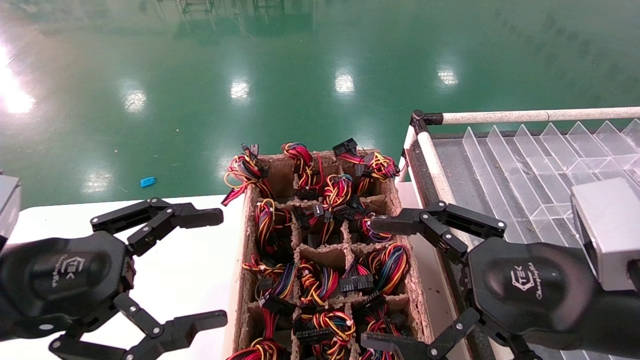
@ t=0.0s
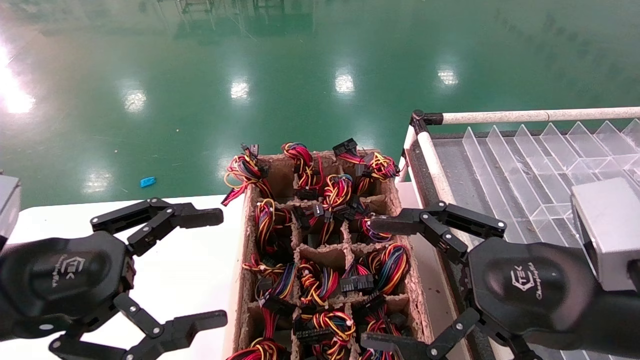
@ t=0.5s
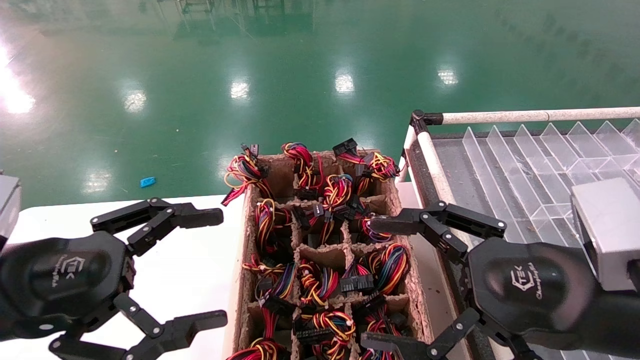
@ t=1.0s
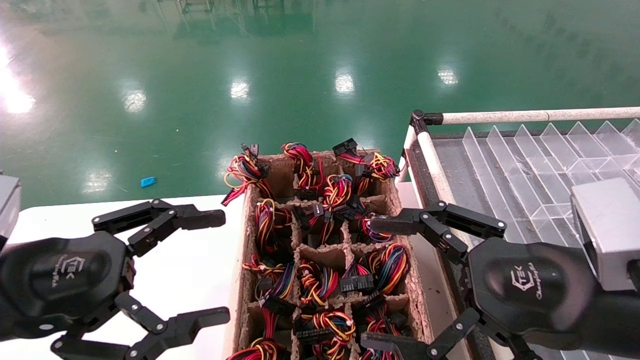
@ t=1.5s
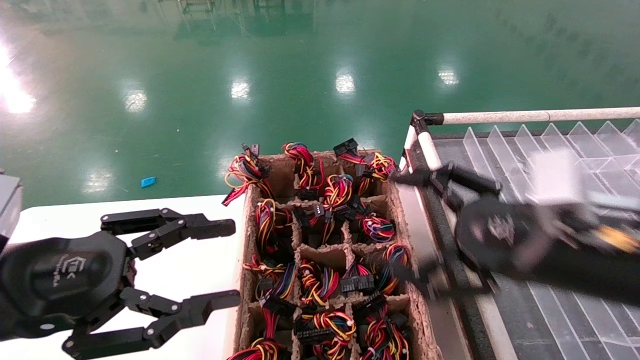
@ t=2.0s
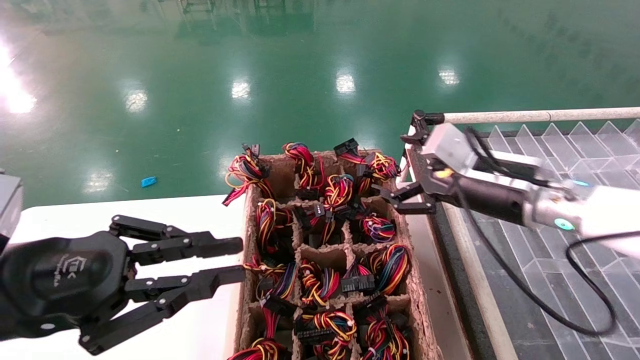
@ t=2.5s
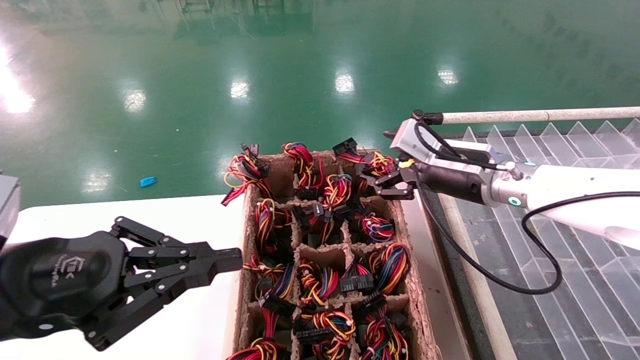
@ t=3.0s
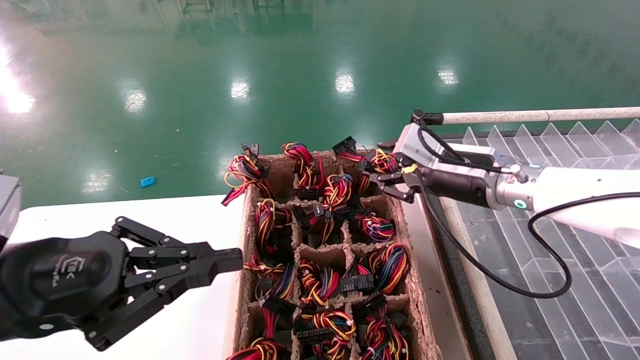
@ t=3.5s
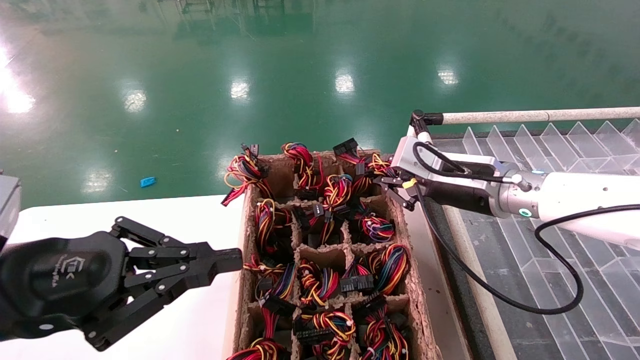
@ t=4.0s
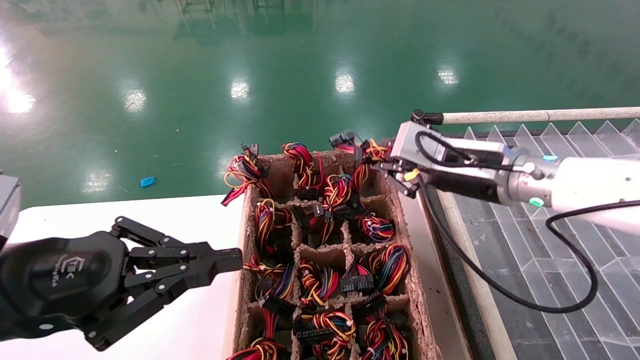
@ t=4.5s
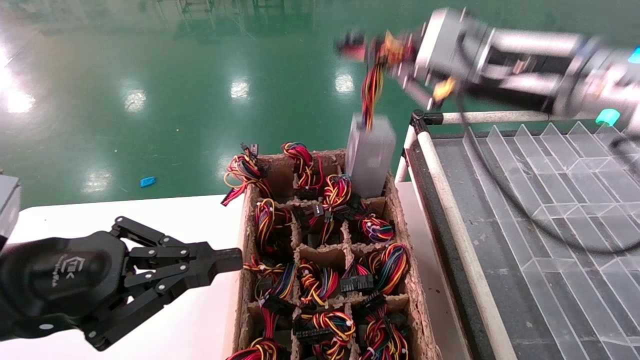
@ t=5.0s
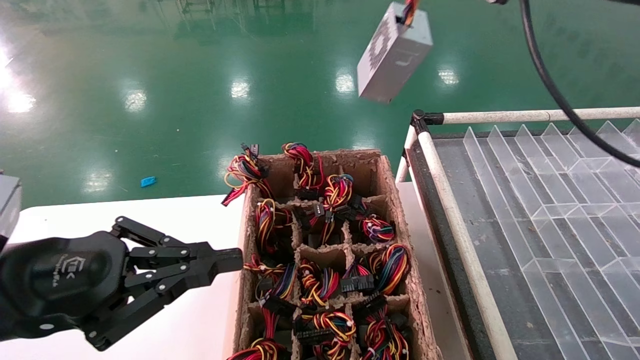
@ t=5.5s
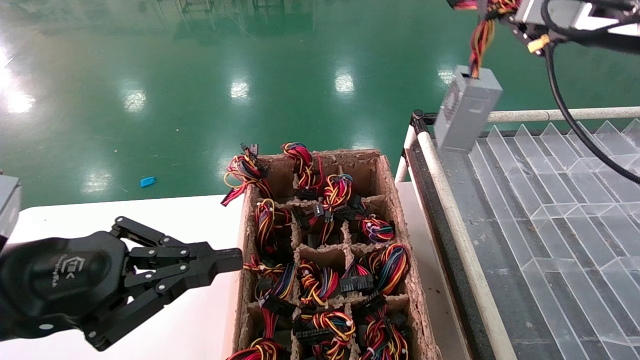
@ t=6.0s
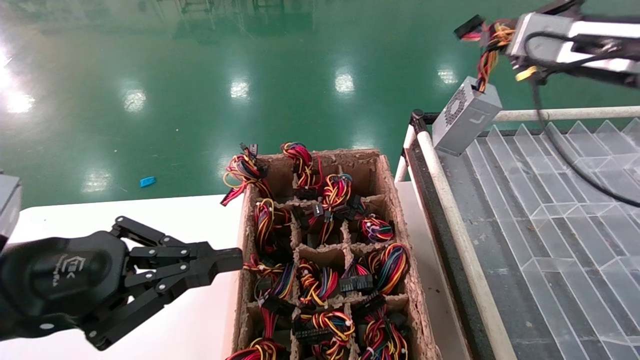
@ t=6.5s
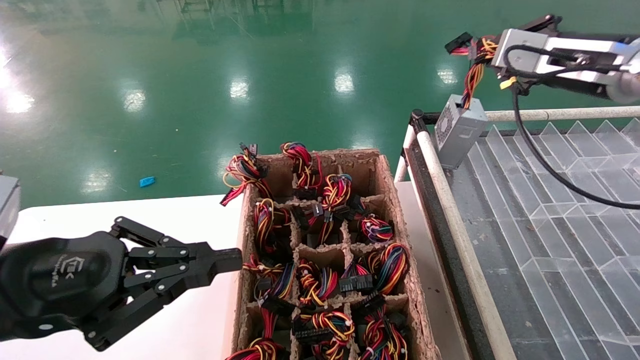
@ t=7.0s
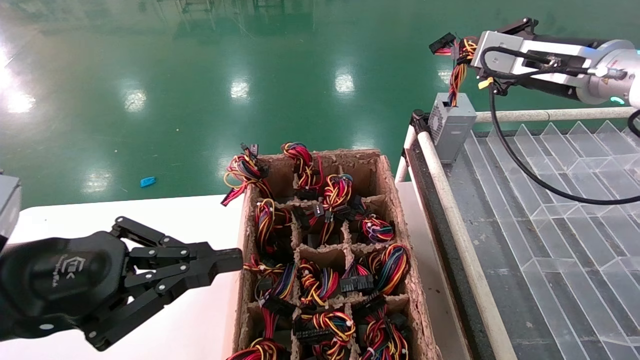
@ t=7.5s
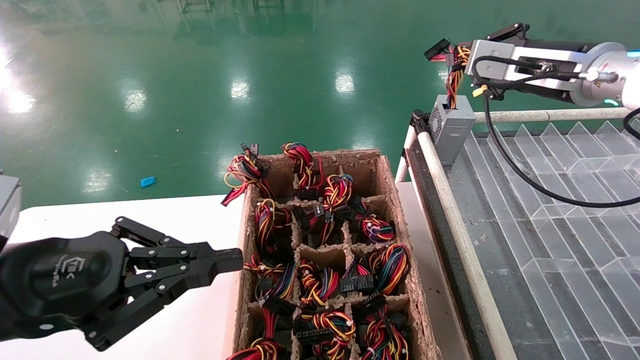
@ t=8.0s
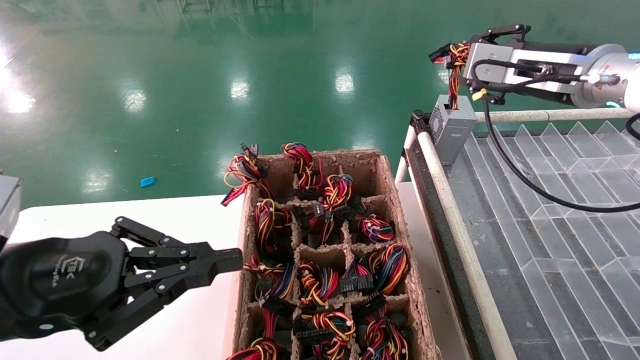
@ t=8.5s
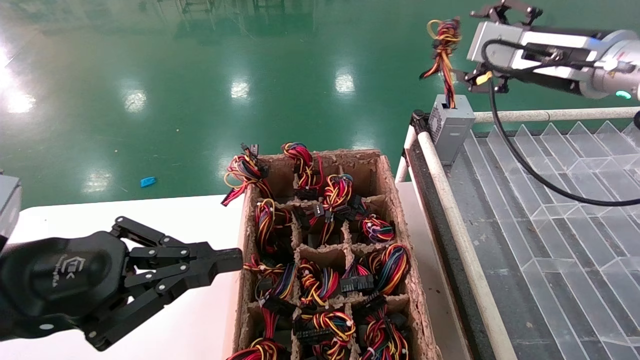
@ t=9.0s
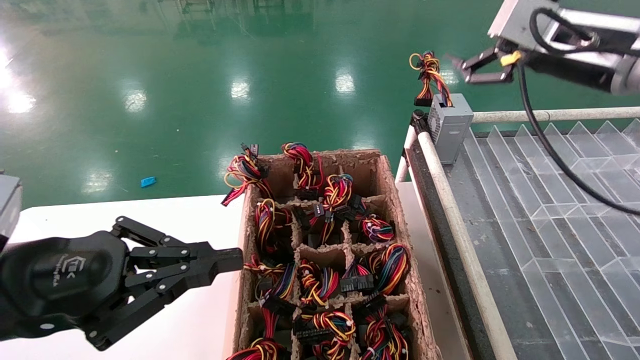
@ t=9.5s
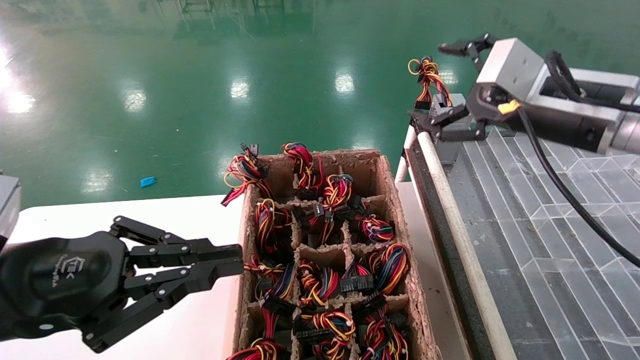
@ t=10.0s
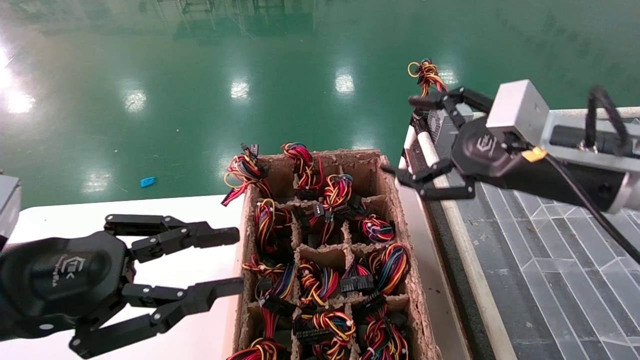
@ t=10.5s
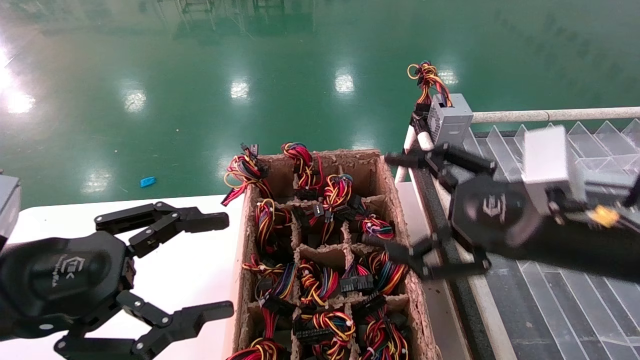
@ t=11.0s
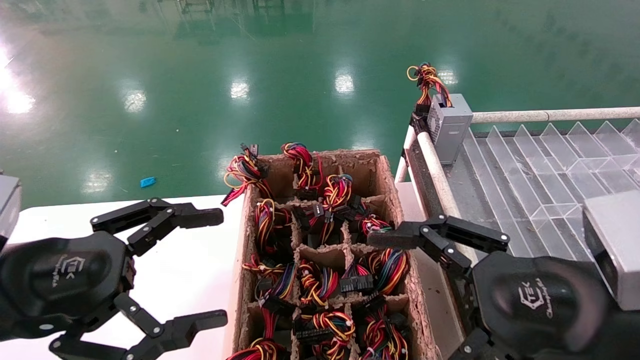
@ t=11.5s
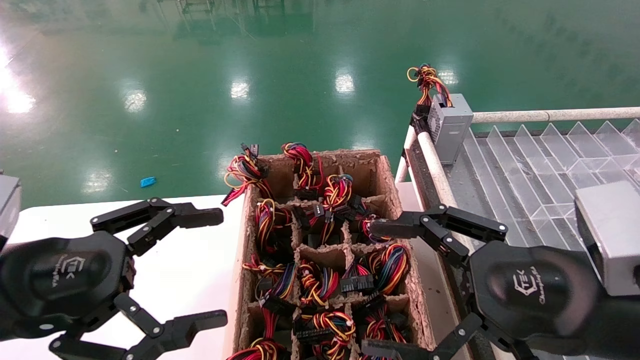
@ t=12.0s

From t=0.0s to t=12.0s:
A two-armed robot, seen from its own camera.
Step, from t=2.5s to t=4.0s: Grab the main unit power supply from the containment box.
Step, from t=4.5s to t=9.0s: Place the main unit power supply in the designated area.
From t=0.0s to t=2.0s: The right gripper goes about 5 cm forward.
From t=2.0s to t=4.0s: The left gripper closes its fingers, while the right gripper shifts some 15 cm forward, and closes.
From t=4.0s to t=6.0s: The right gripper is displaced upward and to the right by some 20 cm.
From t=6.0s to t=8.0s: The right gripper travels forward by approximately 10 cm.
From t=8.0s to t=10.0s: The right gripper travels backward by some 5 cm, and opens up.
From t=10.0s to t=12.0s: The left gripper opens up. The right gripper goes roughly 20 cm backward and downward.

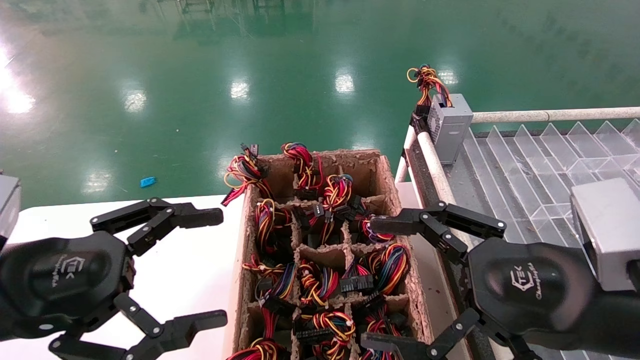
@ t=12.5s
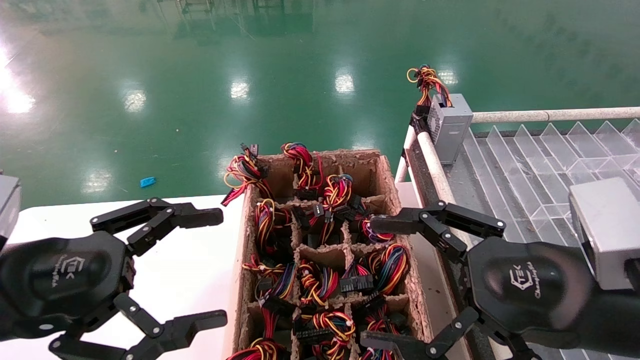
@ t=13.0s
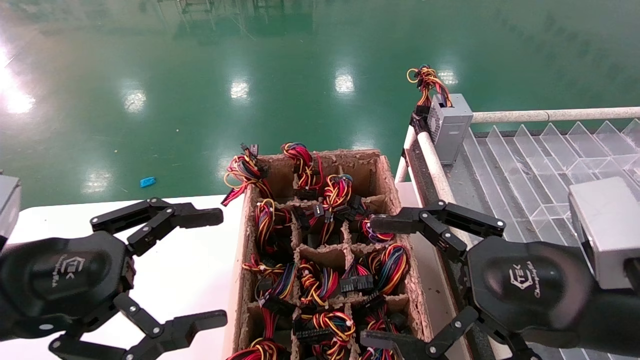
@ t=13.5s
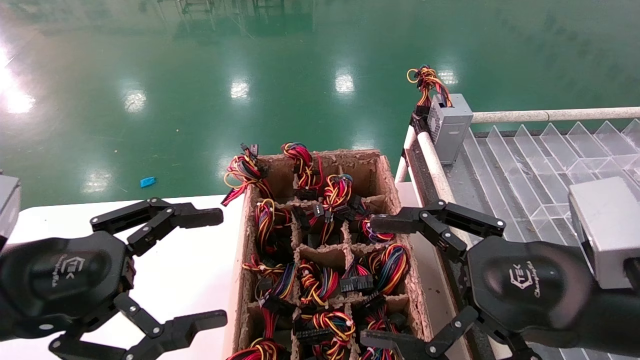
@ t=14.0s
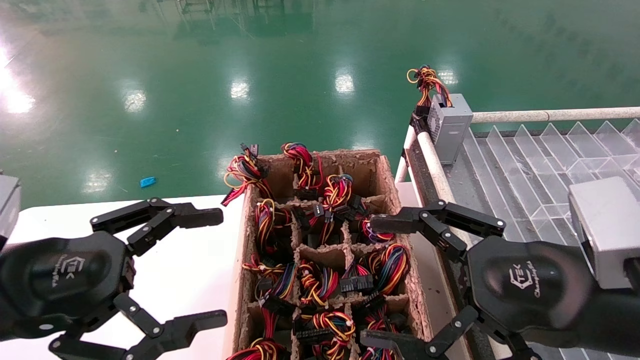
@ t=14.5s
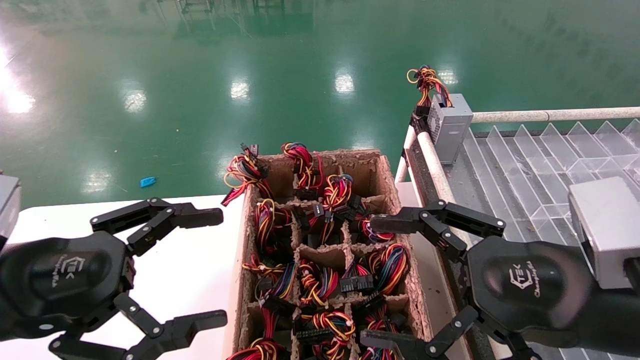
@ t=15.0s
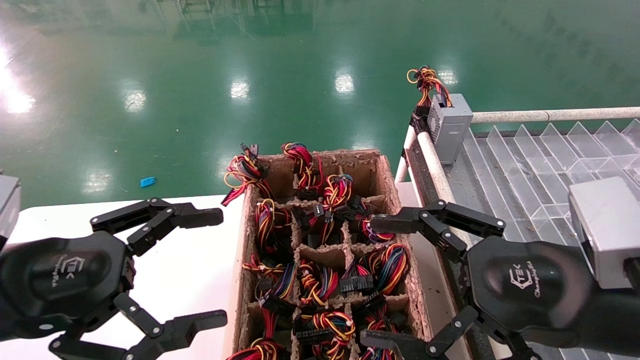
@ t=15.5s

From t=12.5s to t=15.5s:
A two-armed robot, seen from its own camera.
From t=12.5s to t=15.5s: Both grippers stay put.

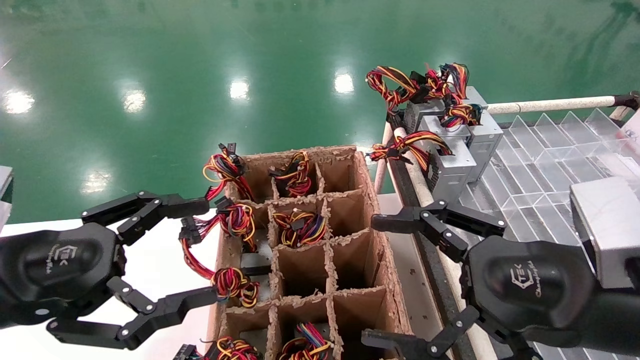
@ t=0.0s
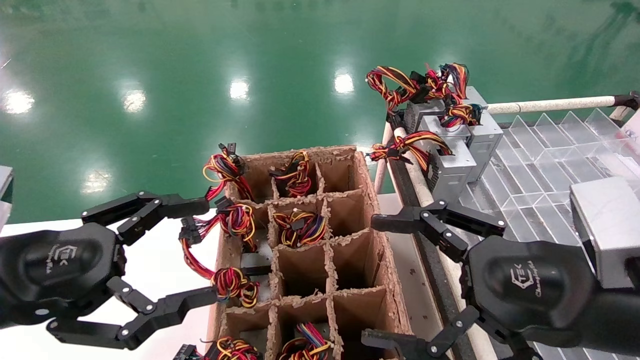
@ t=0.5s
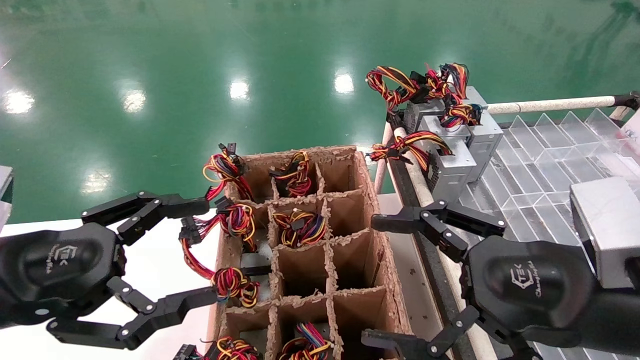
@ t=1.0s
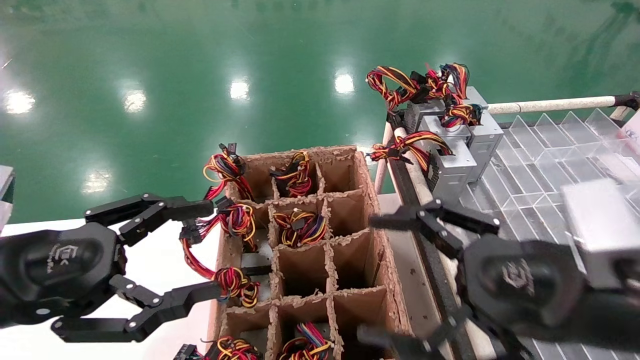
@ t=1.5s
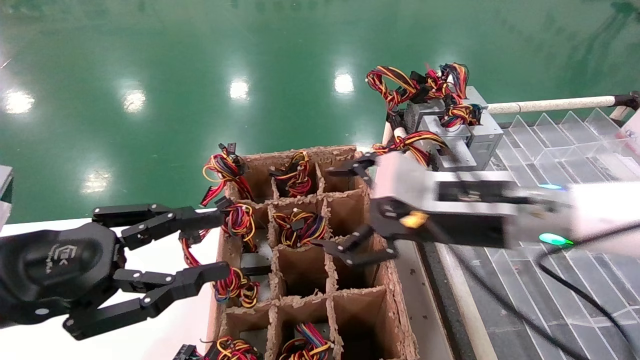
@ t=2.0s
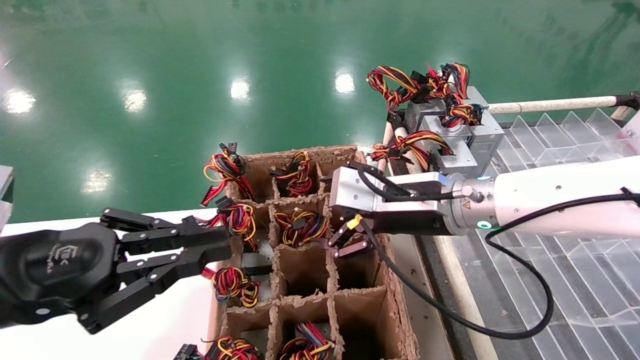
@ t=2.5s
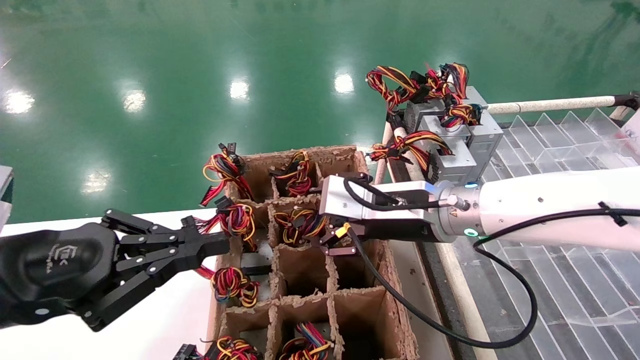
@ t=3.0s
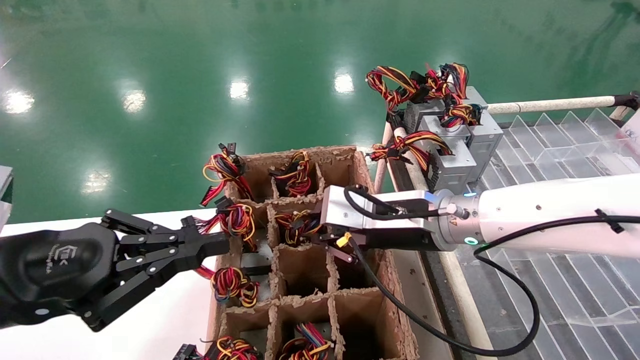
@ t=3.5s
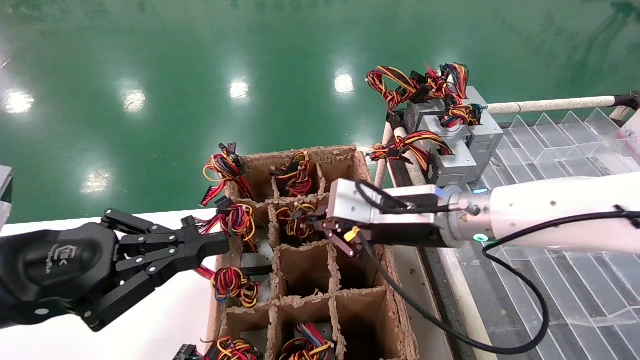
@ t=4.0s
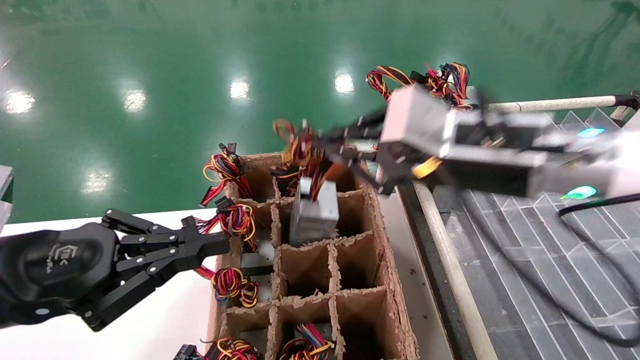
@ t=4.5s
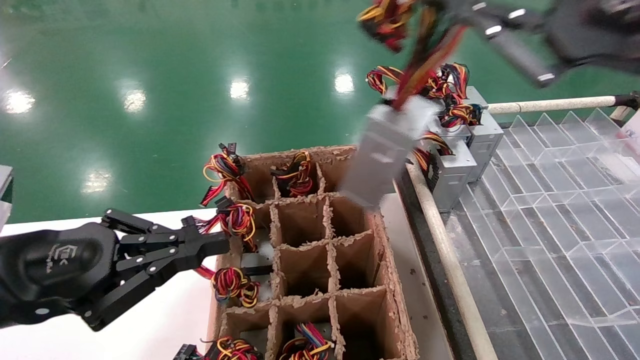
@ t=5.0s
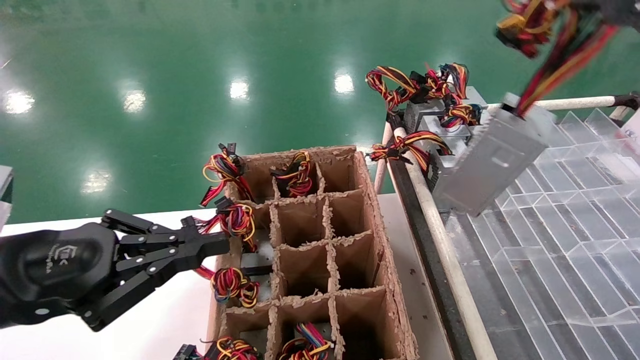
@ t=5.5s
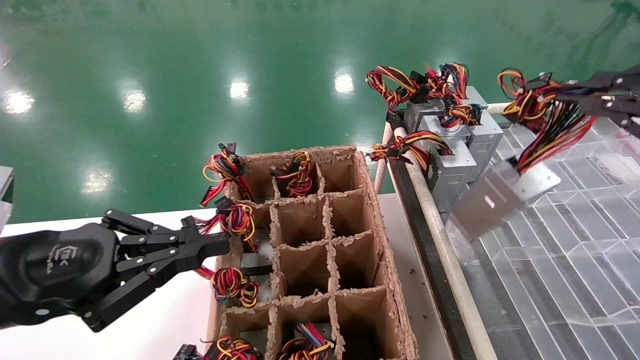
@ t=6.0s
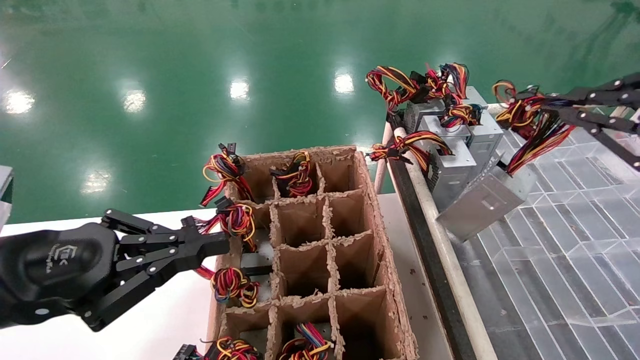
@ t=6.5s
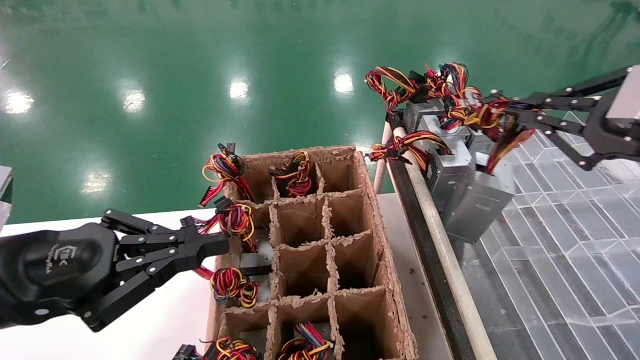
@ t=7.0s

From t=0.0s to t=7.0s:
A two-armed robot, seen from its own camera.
Step, from t=2.0s to t=3.5s: Grab the main unit power supply from the containment box.
From t=0.0s to t=2.0s: The right gripper heads forward and to the left, covering roughly 15 cm. The left gripper closes its fingers.
From t=2.0s to t=3.5s: The right gripper shifts by some 5 cm, and closes its fingers, while the left gripper closes its fingers.
From t=3.5s to t=5.0s: The right gripper travels upward, backward and to the right by approximately 30 cm, and closes its fingers.
From t=5.0s to t=7.0s: The right gripper moves to the right and downward, approximately 10 cm.
